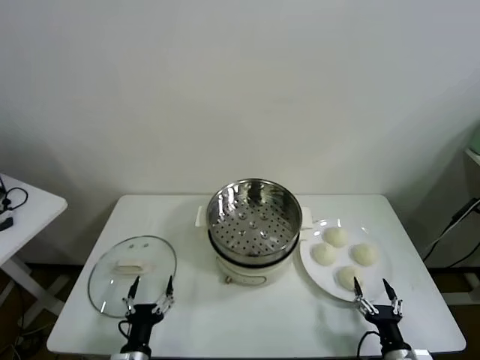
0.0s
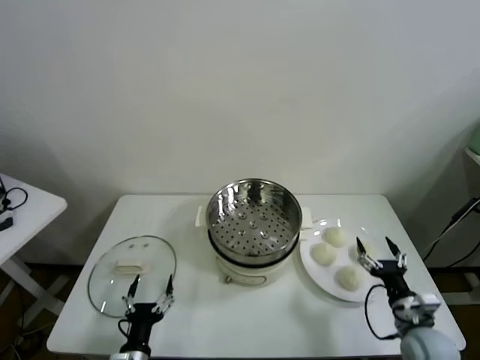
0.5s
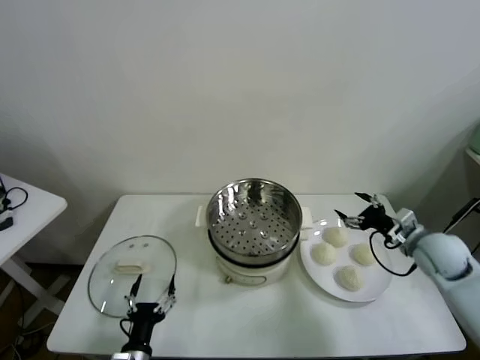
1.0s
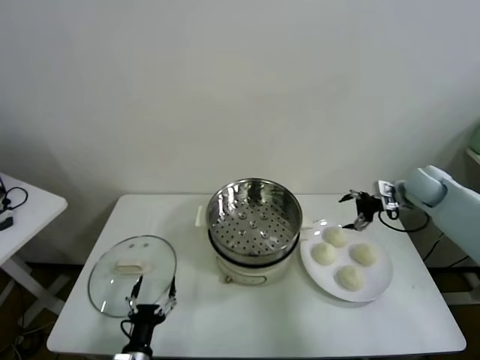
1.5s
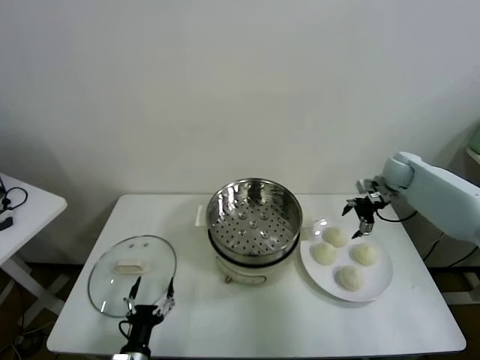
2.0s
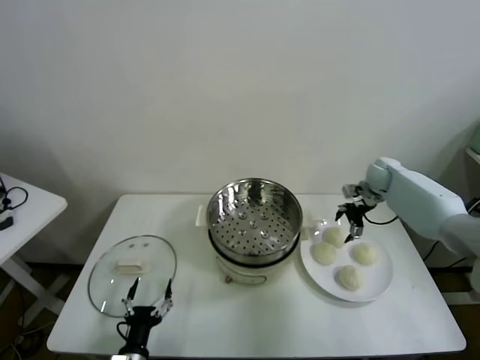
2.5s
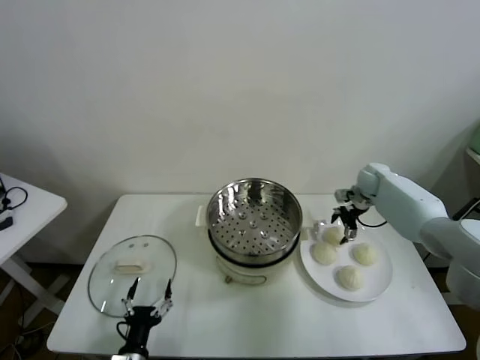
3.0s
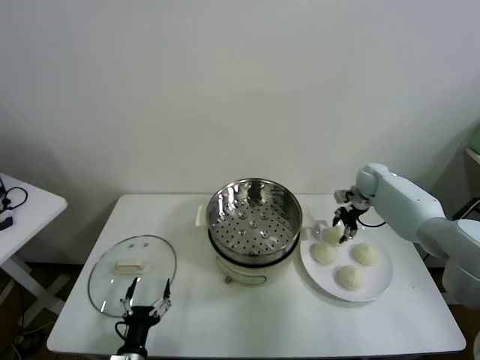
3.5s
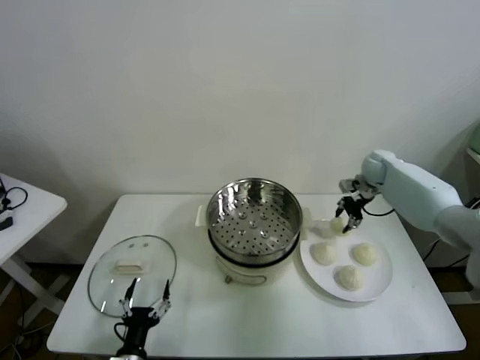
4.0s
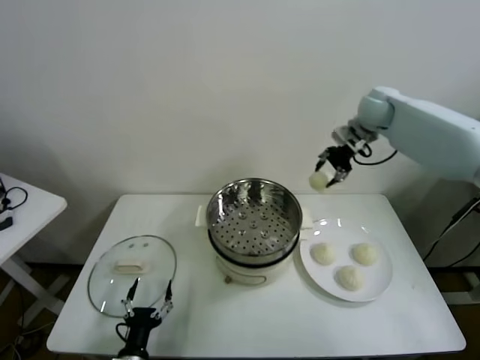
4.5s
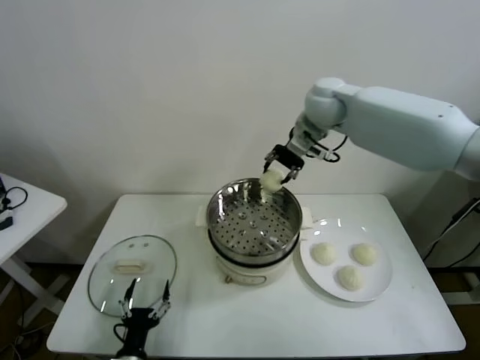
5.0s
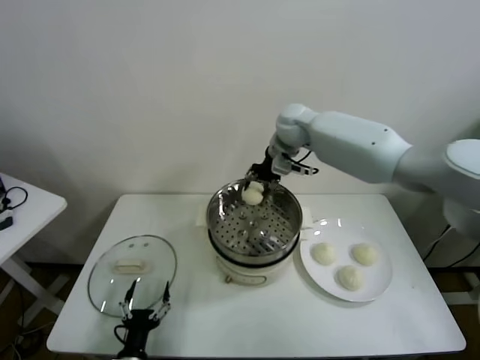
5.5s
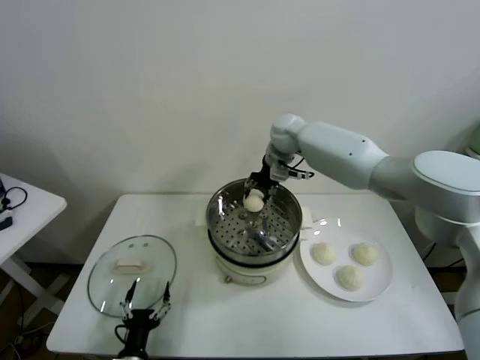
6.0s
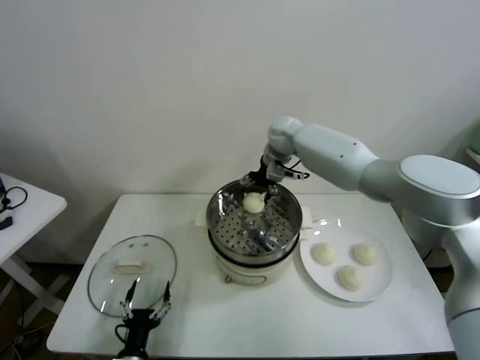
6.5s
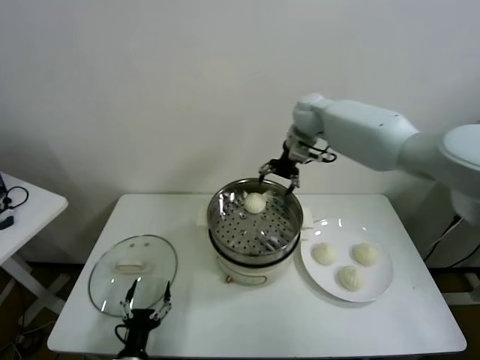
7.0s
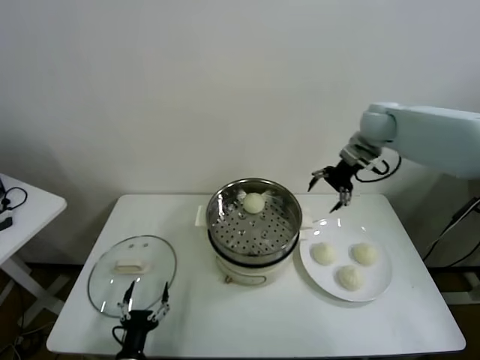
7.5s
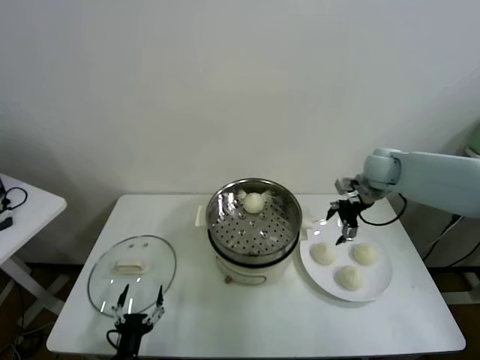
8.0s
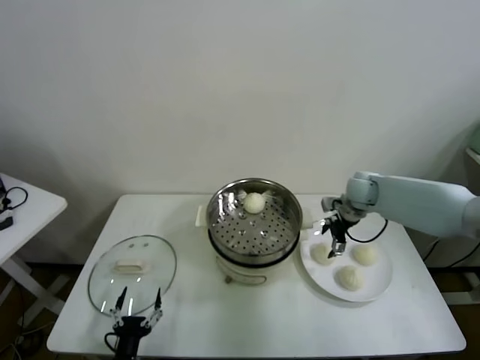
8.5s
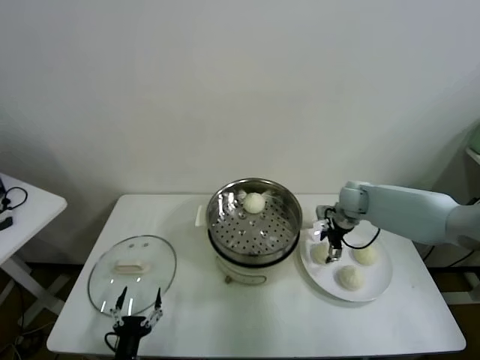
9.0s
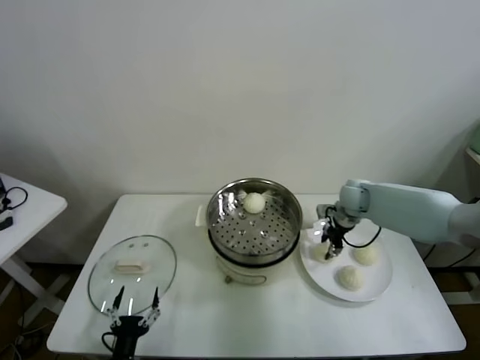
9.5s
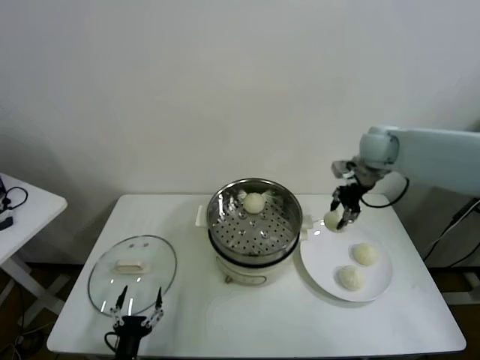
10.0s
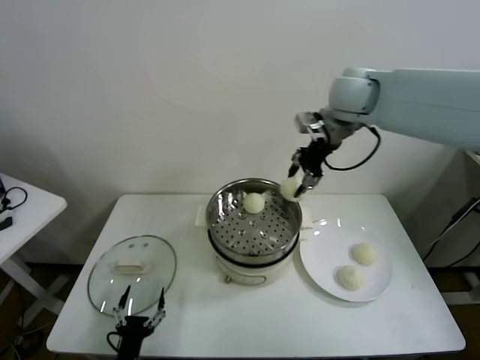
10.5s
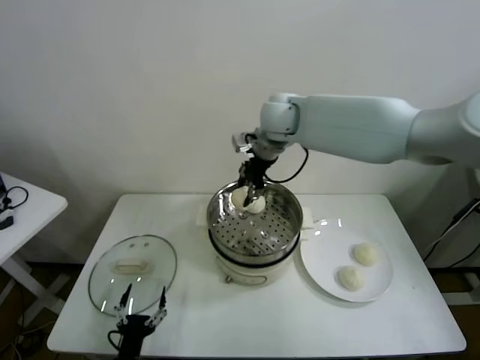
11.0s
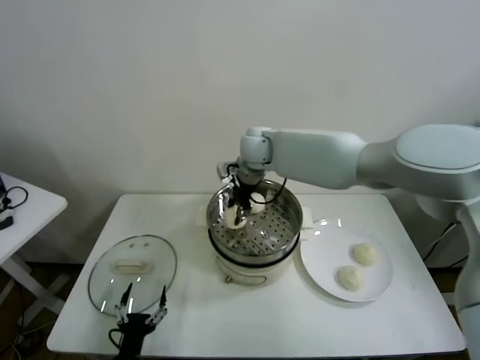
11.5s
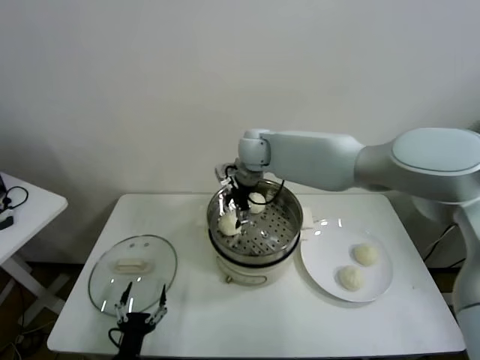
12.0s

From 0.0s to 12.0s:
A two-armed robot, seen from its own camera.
Task of the whole recording: take steamed baozi put them in steamer.
Step, from 0.0s to 3.0s: Grasp the baozi in the plate with right gripper.
Step, from 3.5s to 6.5s: Place the baozi on the steamer with right gripper.
Step, from 7.0s to 9.0s: Grasp the baozi in the plate with right gripper.
Step, from 9.5s to 11.5s: Place the baozi on the steamer with right gripper.
From 2.0s to 4.0s: The right gripper goes downward and returns, some 5 cm each way, and closes up.
From 4.0s to 6.0s: The right gripper heads to the left, covering some 25 cm.
From 6.0s to 8.0s: The right gripper travels to the right by approximately 20 cm, and opens up.
From 8.0s to 10.0s: The right gripper travels upward by some 10 cm, and closes up.
From 10.0s to 12.0s: The right gripper is displaced to the left by roughly 25 cm, and opens up.

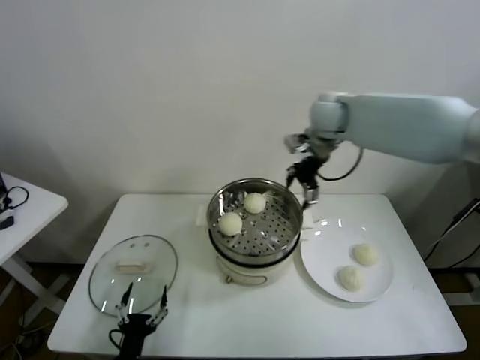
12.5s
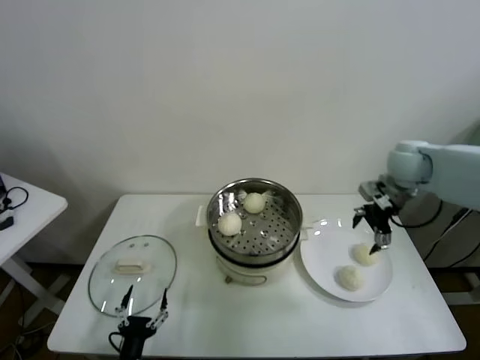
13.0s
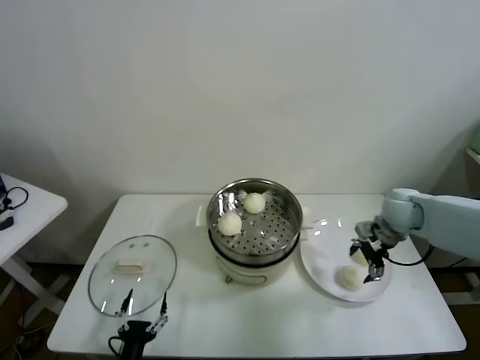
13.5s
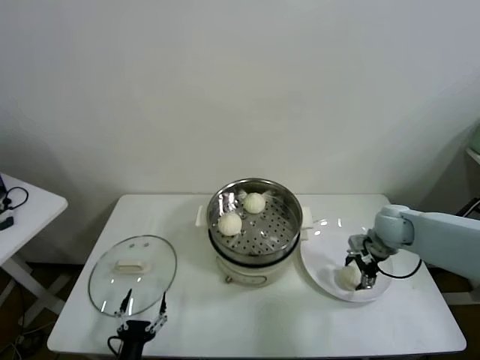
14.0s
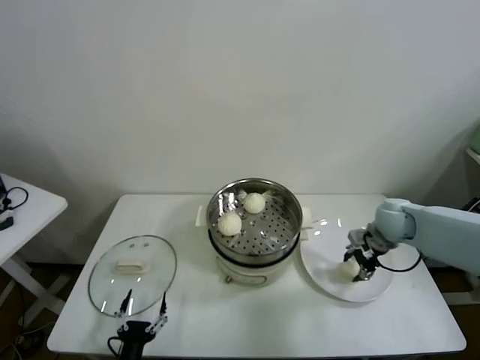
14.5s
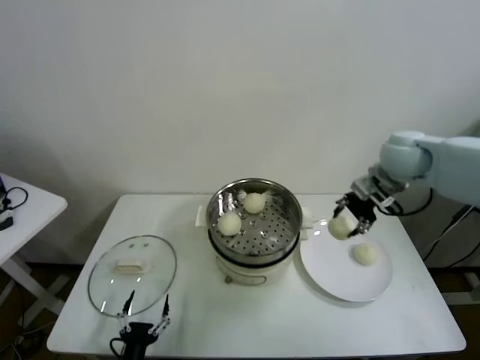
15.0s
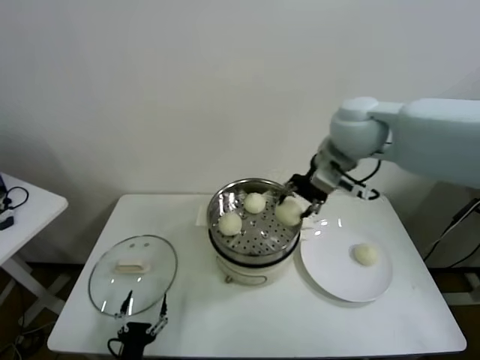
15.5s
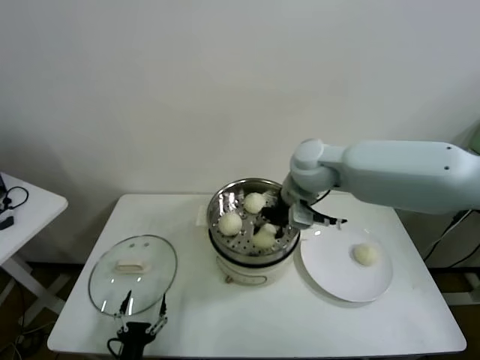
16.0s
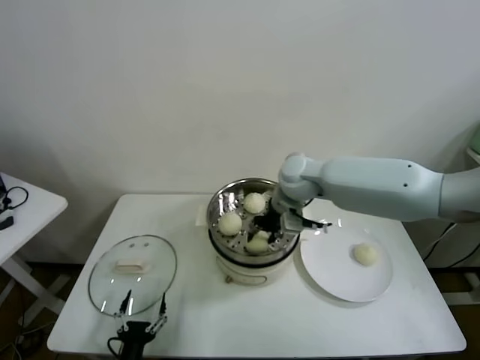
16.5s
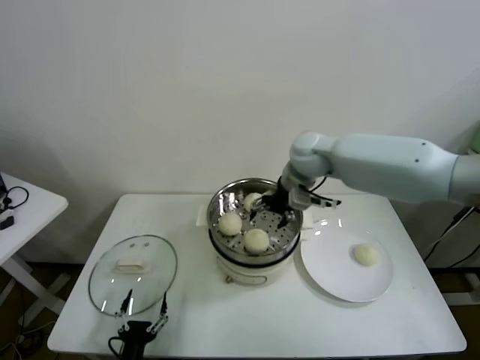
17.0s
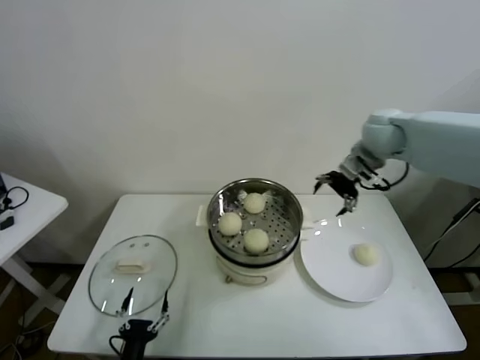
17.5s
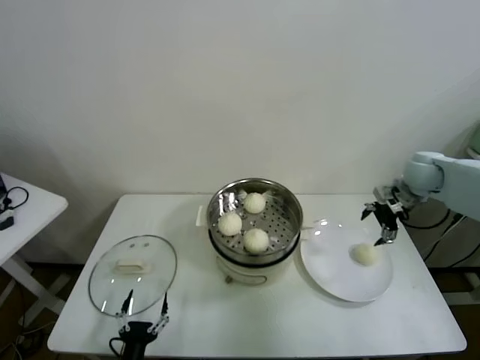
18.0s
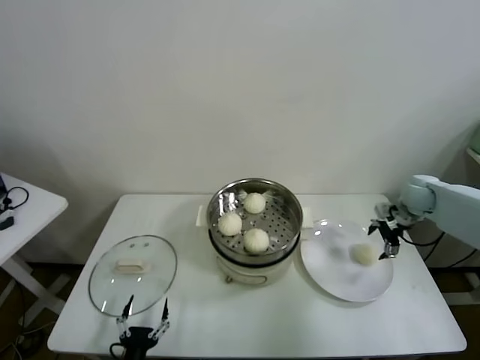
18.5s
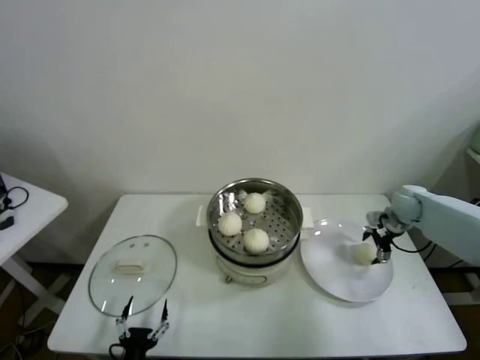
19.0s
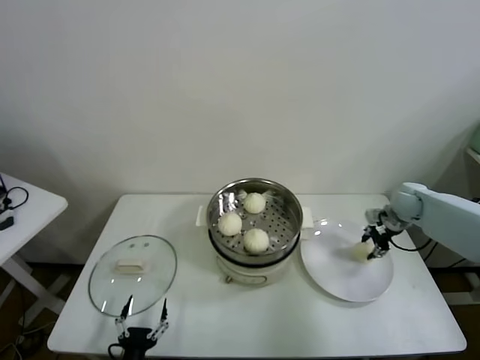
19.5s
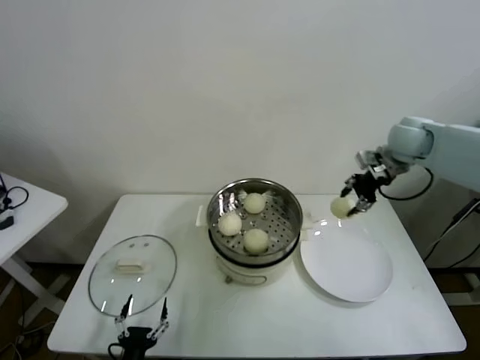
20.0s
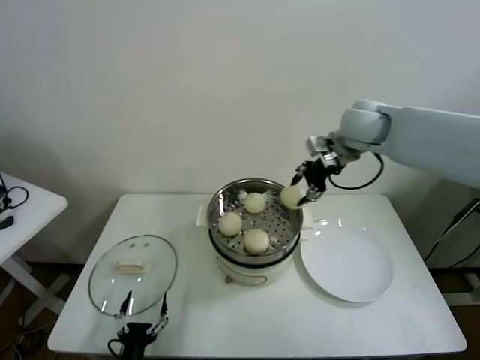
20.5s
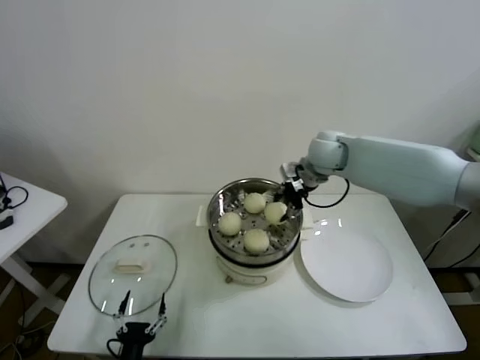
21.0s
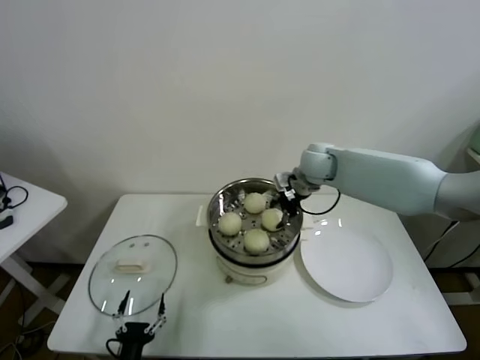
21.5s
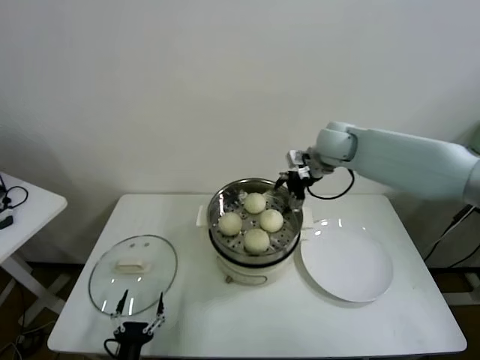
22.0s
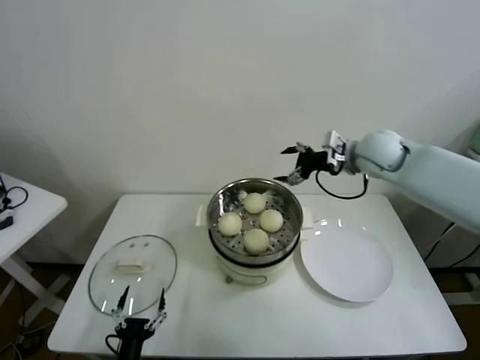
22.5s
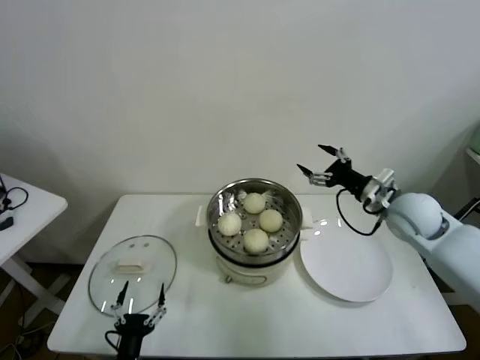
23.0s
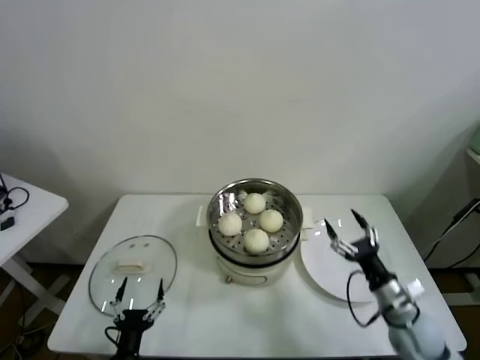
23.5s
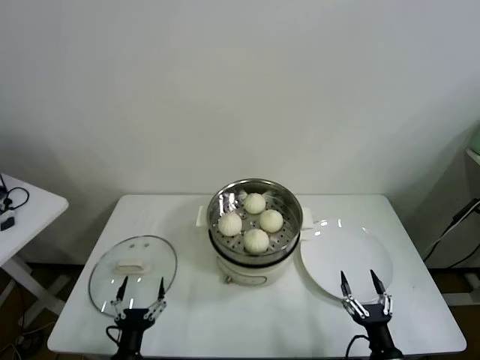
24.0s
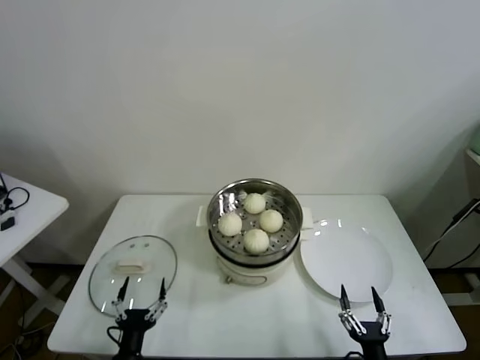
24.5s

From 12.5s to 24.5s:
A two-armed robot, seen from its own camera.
Task of the whole recording: take steamed baozi put them in steamer.
Step, from 12.5s to 14.0s: Grasp the baozi in the plate with right gripper.
Step, from 14.5s to 16.5s: Place the baozi on the steamer with right gripper.
Step, from 17.0s to 19.0s: Grasp the baozi in the plate with right gripper.
Step, from 19.5s to 21.5s: Place the baozi on the steamer with right gripper.
From 12.5s to 14.5s: The right gripper shifts some 30 cm downward, to the right and backward, and closes.
From 14.5s to 16.5s: The right gripper moves to the left and upward, roughly 25 cm.
From 16.5s to 18.5s: The right gripper moves to the right, about 35 cm, and opens up.
From 18.5s to 20.5s: The right gripper heads to the left and upward, covering roughly 30 cm, and closes its fingers.
From 20.5s to 22.5s: The right gripper is displaced downward by roughly 5 cm, and opens.
From 22.5s to 24.5s: The right gripper is displaced backward and downward by approximately 60 cm.

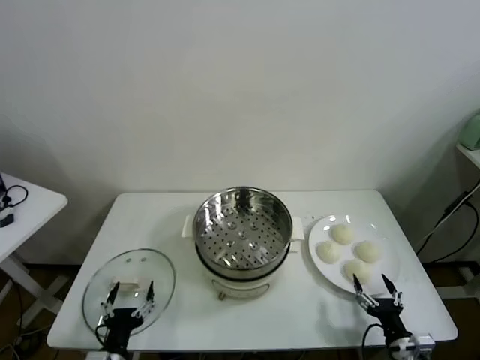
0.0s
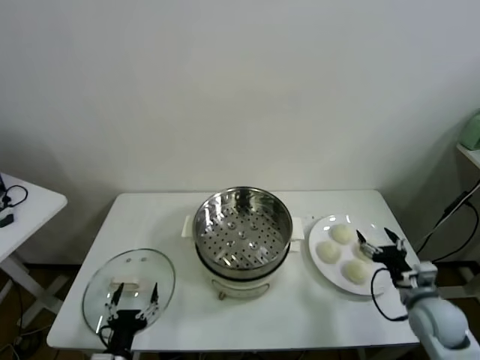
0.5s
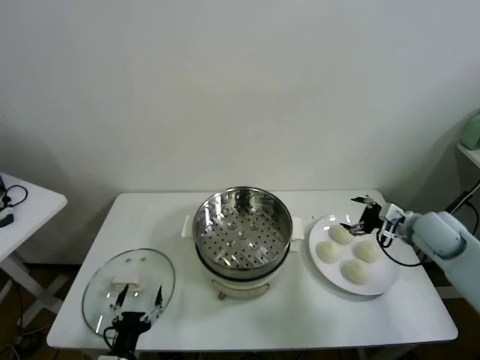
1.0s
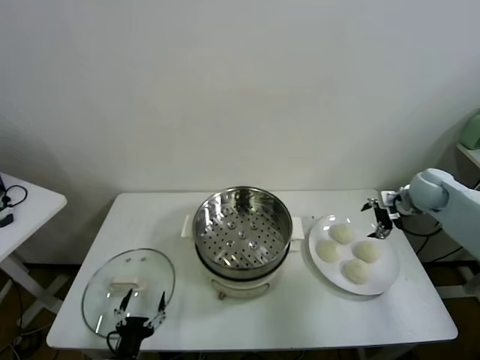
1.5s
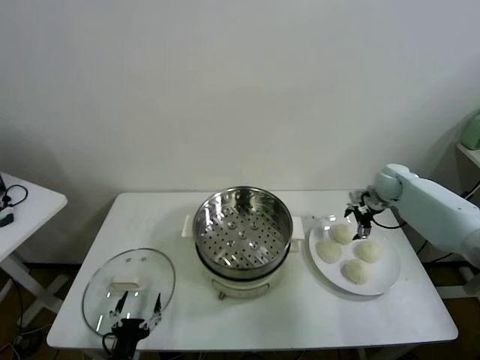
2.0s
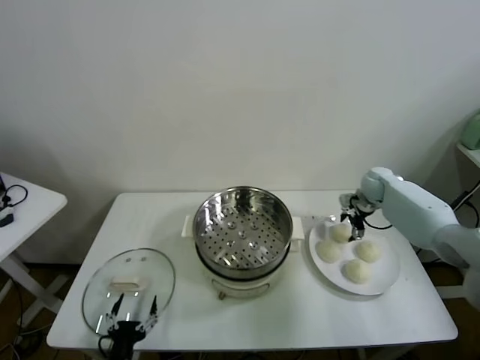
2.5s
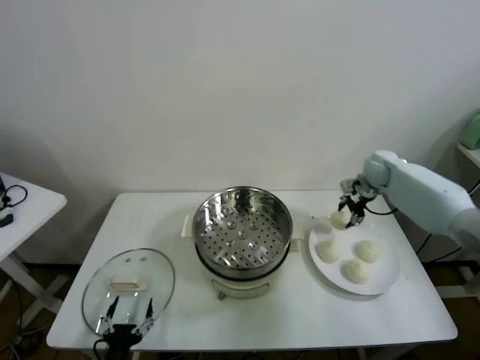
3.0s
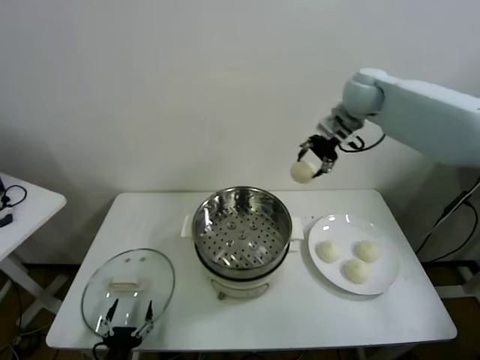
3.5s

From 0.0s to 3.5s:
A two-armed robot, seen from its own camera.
Task of the whole recording: take steamed baozi put them in steamer.
Step, from 0.0s to 2.5s: Grasp the baozi in the plate with right gripper.
From 2.0s to 3.5s: The right gripper shifts roughly 30 cm upward and to the left, and closes.
